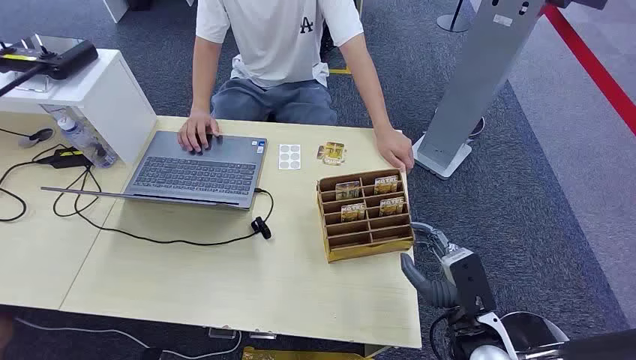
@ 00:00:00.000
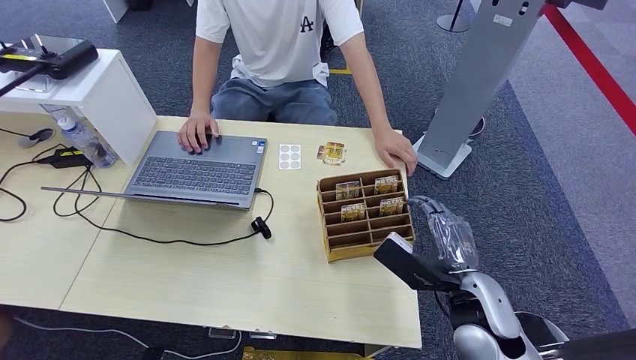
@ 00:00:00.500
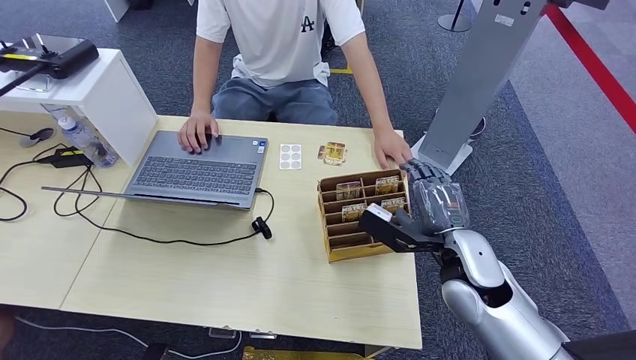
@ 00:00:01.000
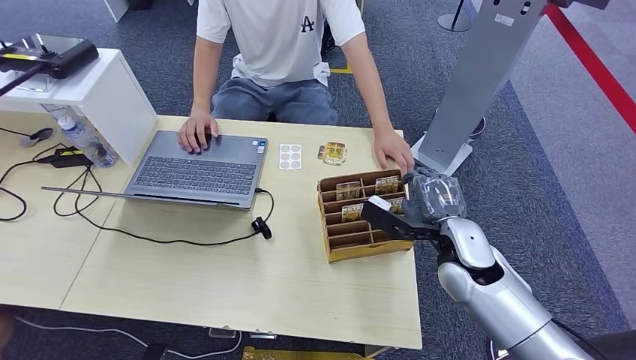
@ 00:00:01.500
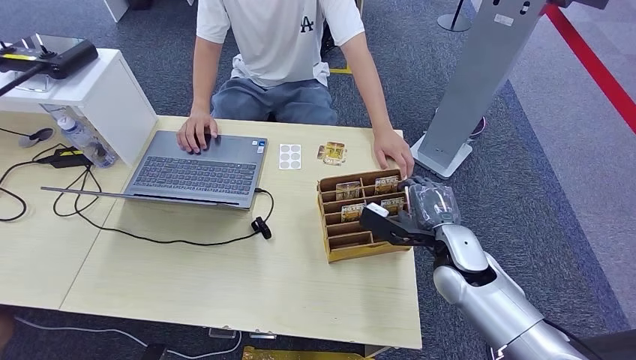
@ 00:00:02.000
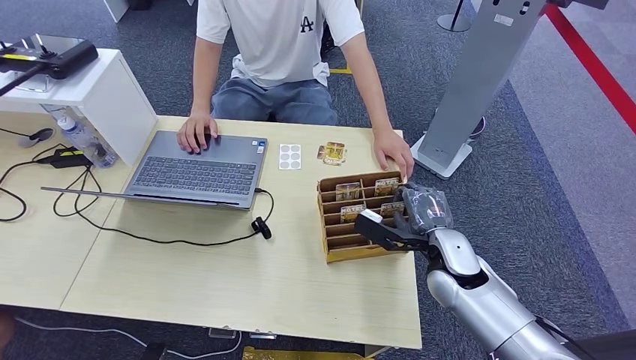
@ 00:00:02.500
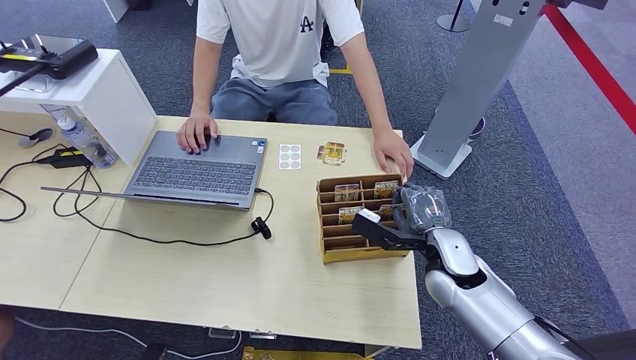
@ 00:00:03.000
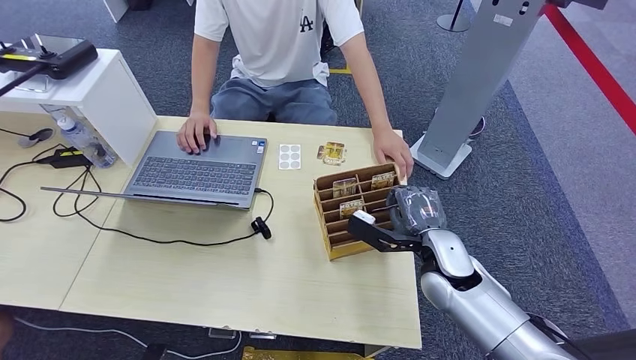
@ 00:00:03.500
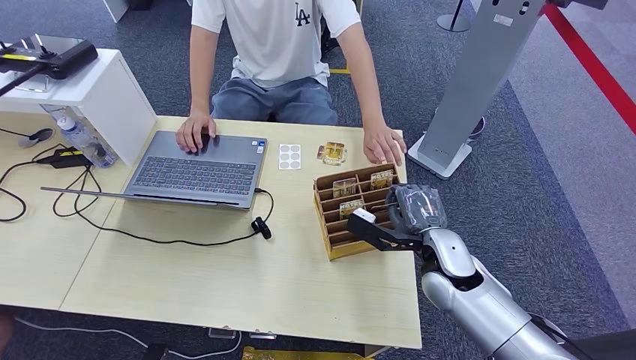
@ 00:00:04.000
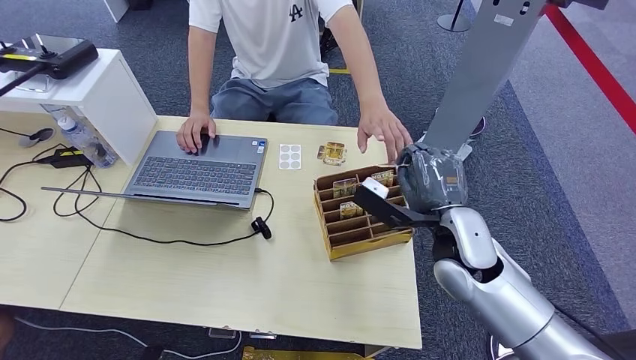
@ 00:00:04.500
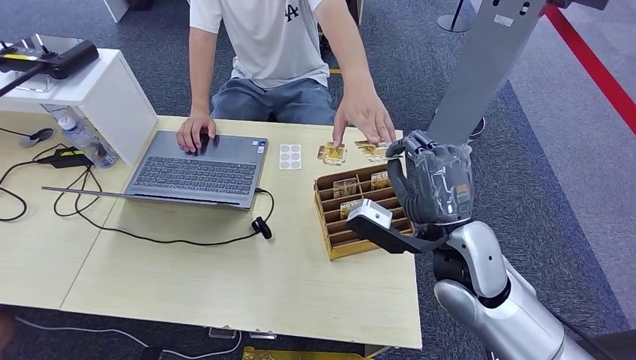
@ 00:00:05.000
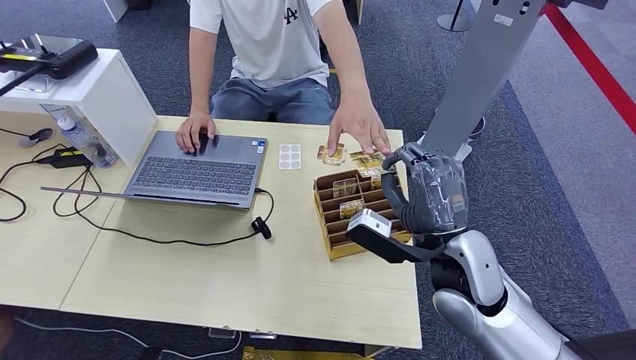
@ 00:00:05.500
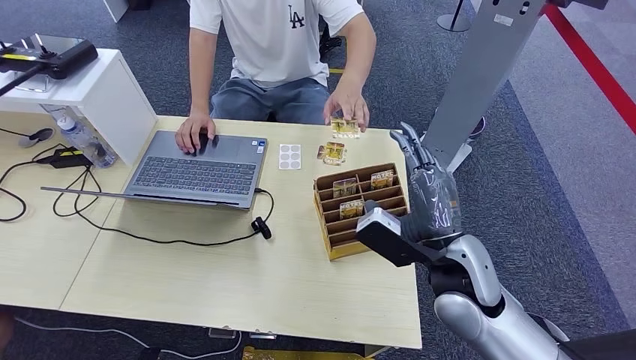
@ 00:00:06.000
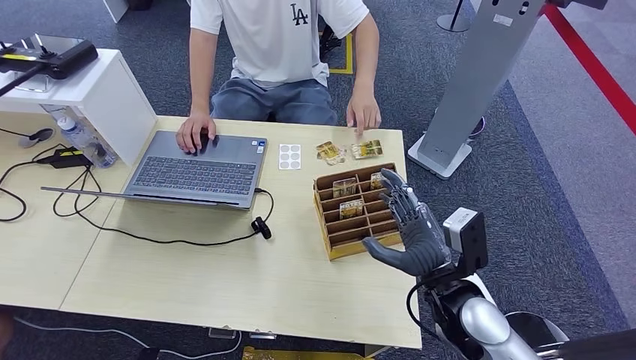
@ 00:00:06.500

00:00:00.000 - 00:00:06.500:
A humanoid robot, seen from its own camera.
Step, 00:00:00.000 - 00:00:05.000: Pick up the room card from the card holder.
Step, 00:00:05.500 - 00:00:06.500: Hand the room card to the target.
00:00:02.000 - 00:00:04.500: The right hand heads upward, covering roughly 5 cm.
00:00:04.500 - 00:00:06.500: The right hand goes approximately 5 cm backward.
